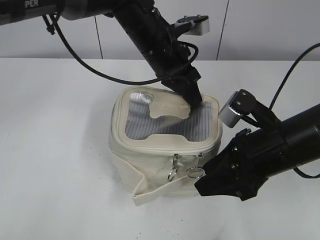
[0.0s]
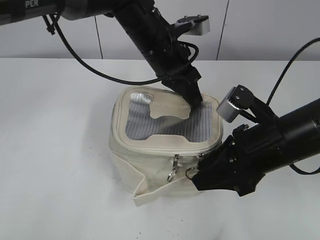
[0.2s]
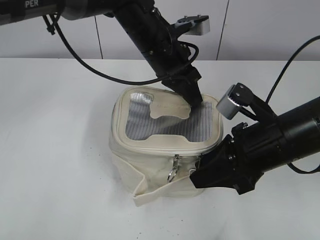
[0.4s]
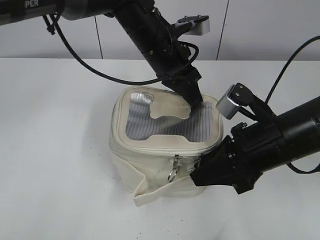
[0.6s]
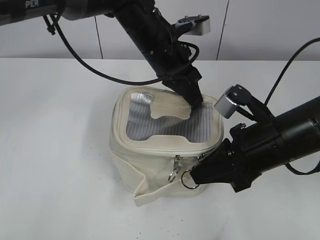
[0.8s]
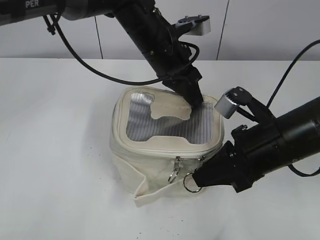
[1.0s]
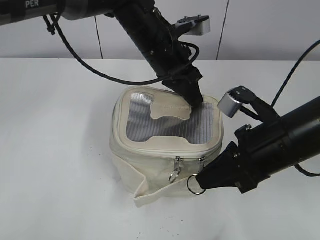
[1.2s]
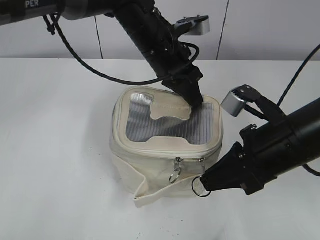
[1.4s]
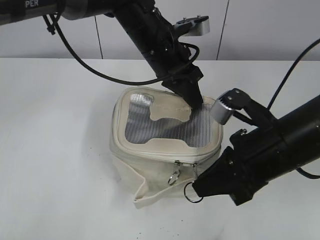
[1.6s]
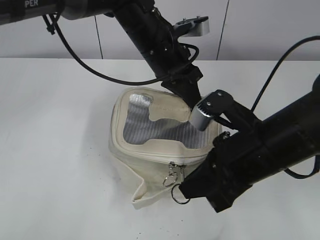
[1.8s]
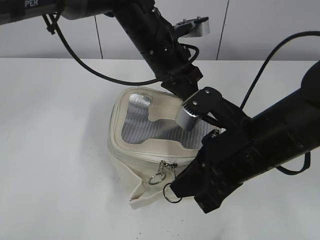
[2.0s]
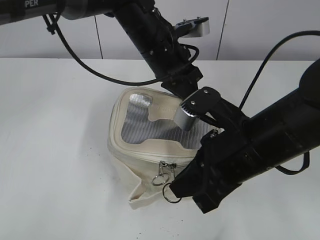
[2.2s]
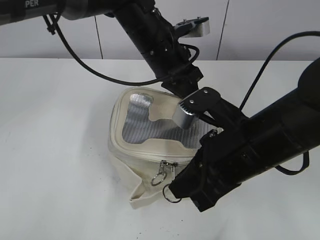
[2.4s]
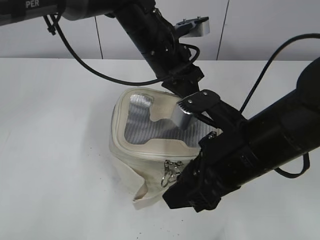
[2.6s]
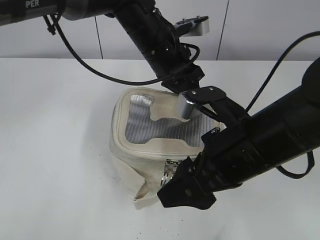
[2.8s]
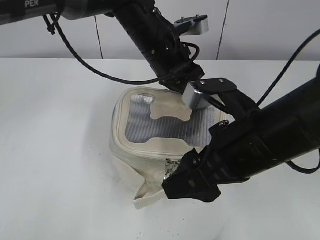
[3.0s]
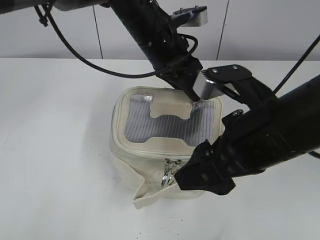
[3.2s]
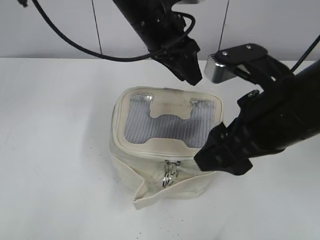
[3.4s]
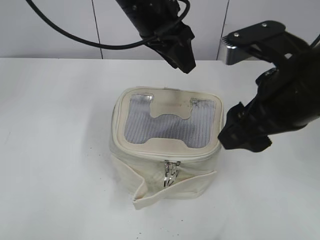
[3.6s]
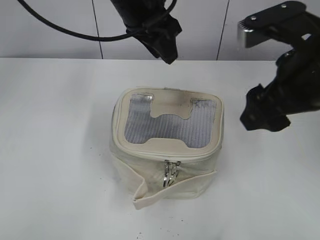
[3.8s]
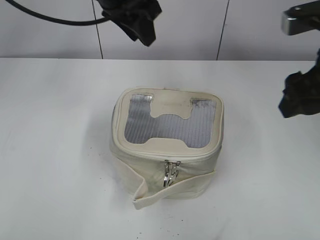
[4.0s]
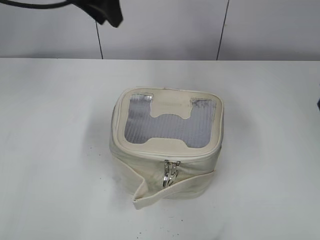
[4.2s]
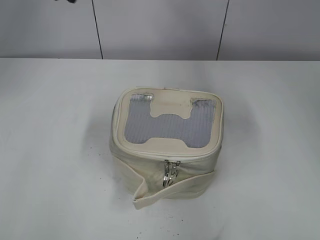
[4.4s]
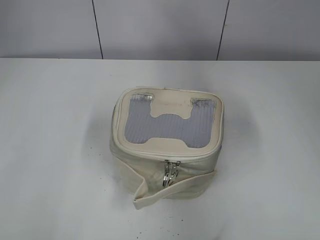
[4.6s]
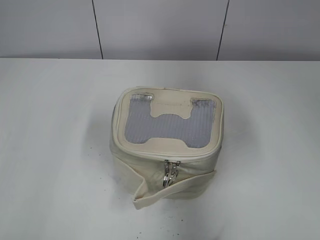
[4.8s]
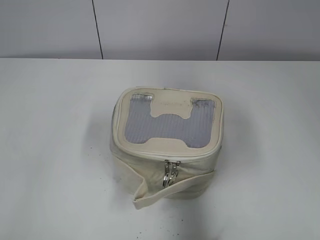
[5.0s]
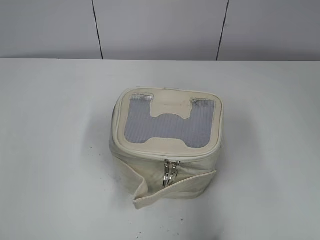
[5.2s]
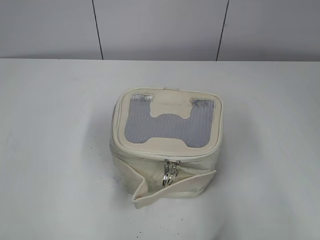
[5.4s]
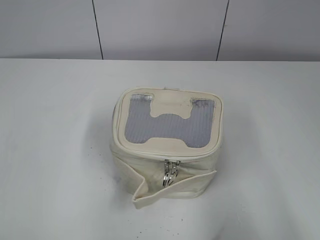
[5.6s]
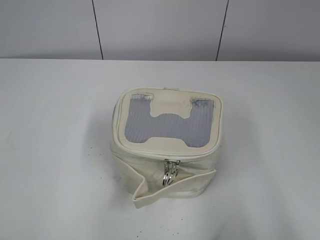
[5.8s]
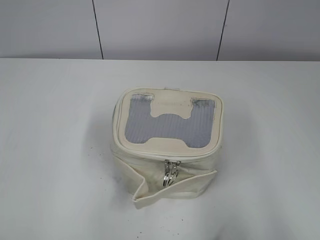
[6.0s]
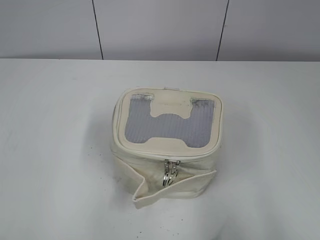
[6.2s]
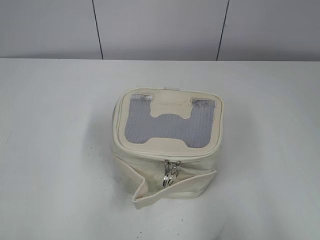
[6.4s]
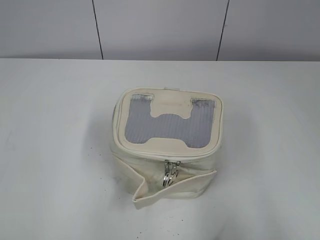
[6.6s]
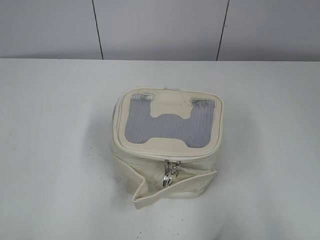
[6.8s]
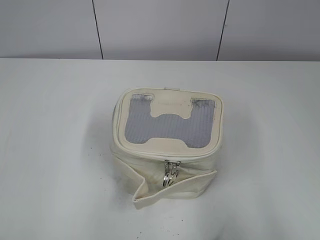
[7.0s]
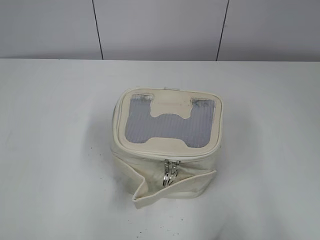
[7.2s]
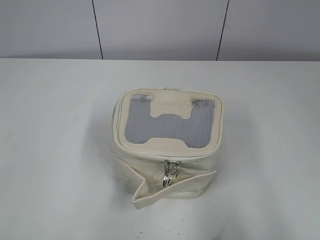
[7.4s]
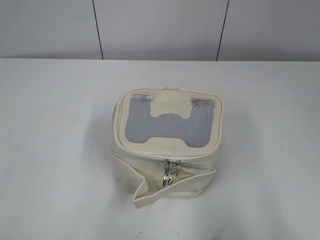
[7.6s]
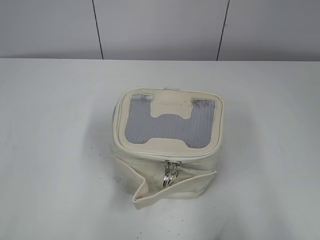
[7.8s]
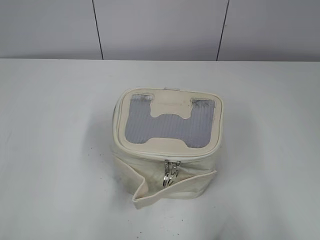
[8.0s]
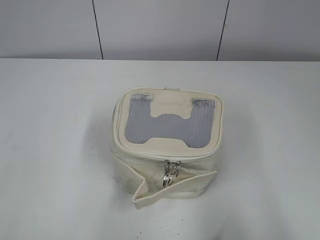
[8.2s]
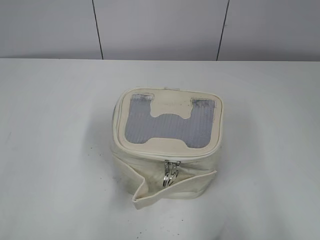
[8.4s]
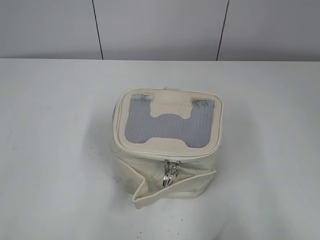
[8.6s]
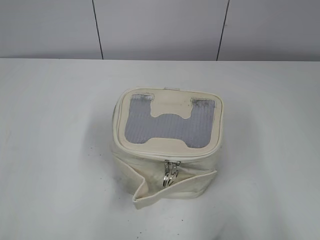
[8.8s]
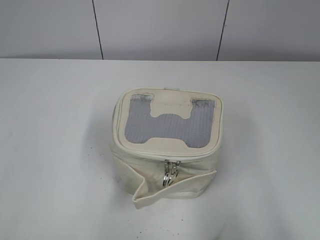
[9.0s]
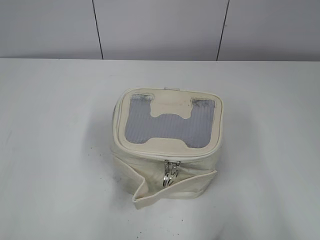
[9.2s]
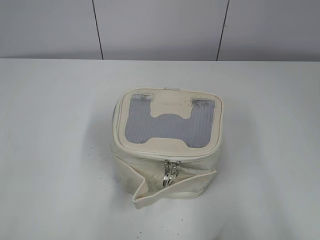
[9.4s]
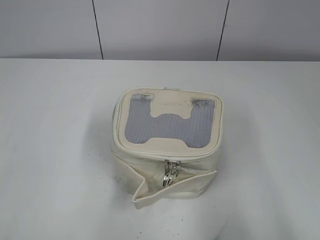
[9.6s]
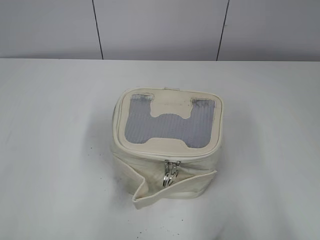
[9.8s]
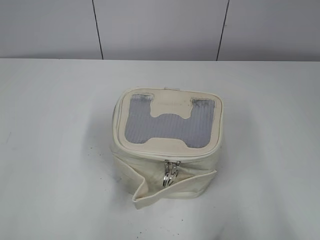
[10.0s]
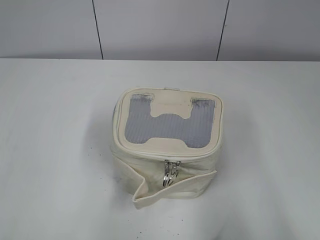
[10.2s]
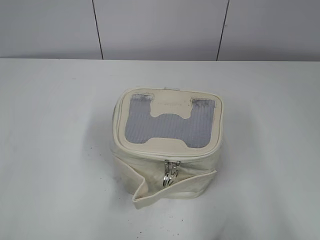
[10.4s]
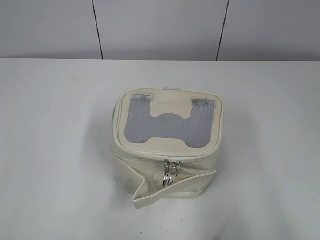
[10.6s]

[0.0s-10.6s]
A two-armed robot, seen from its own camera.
Step, 0.0s to 2.6s: Zip up the bag with your right hand.
Step, 2.8s to 3.4s: Hold the bag with your left hand.
0.0s to 1.6s: The right gripper closes up.
1.6s to 3.0s: The right gripper opens, while the left gripper opens its fingers.
3.0s to 4.6s: The right gripper goes roughly 20 cm to the right and upward. Meanwhile the left gripper heads to the left and upward, covering approximately 30 cm.
4.6s to 6.0s: Both grippers travel together backward, approximately 30 cm.
9.0s to 10.6s: Both grippers stay put.
